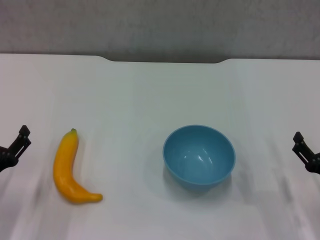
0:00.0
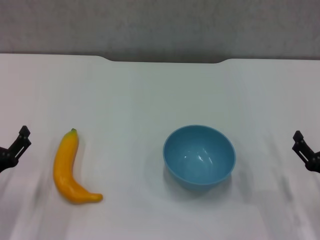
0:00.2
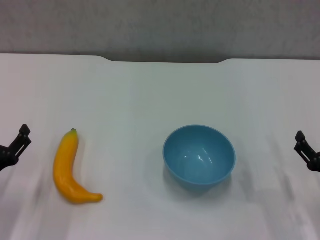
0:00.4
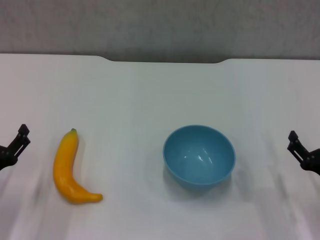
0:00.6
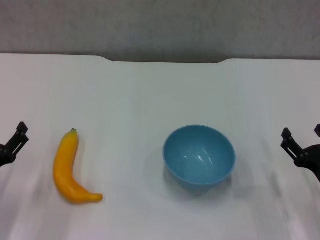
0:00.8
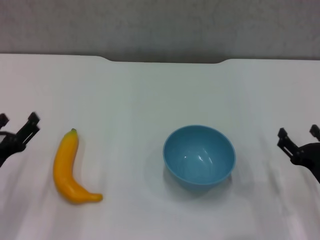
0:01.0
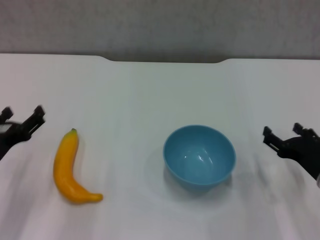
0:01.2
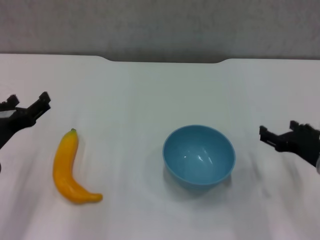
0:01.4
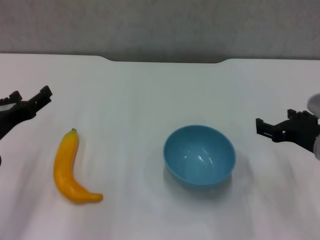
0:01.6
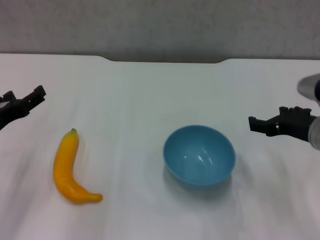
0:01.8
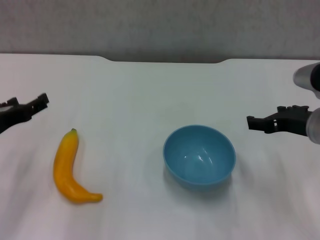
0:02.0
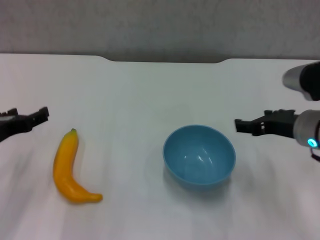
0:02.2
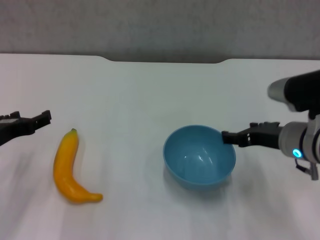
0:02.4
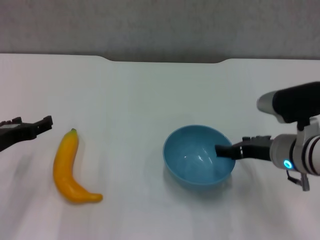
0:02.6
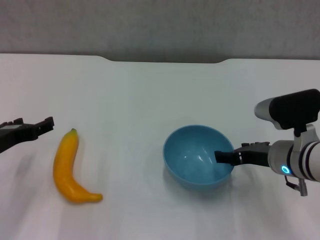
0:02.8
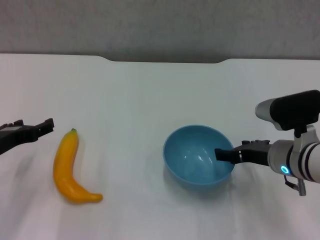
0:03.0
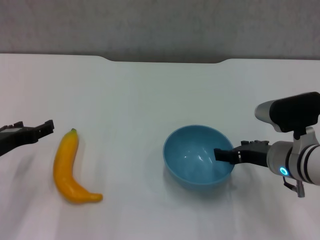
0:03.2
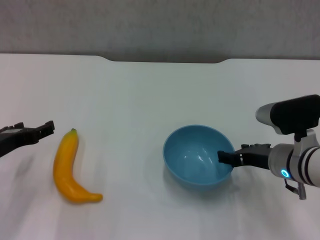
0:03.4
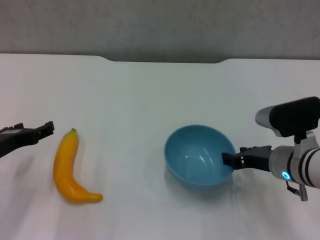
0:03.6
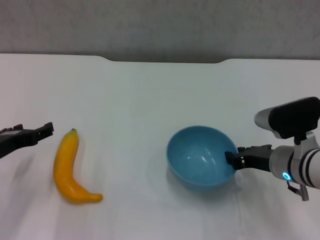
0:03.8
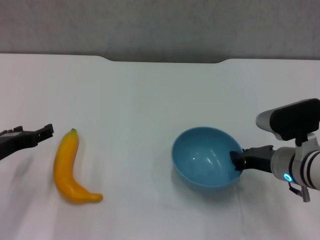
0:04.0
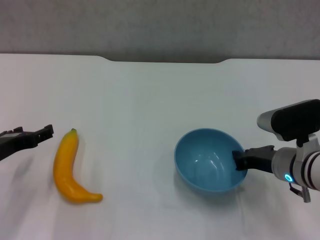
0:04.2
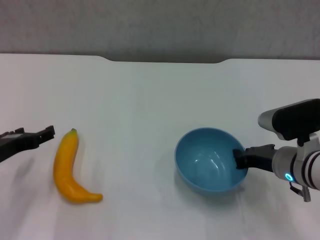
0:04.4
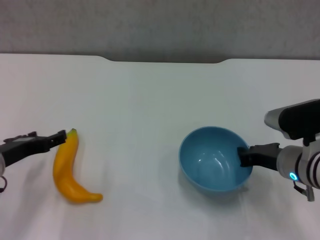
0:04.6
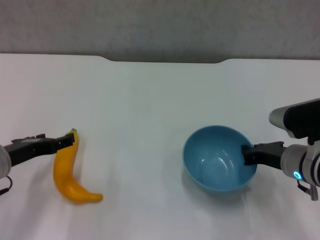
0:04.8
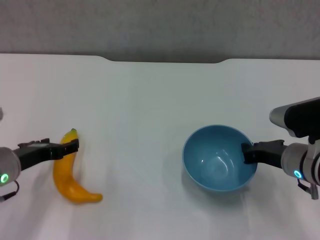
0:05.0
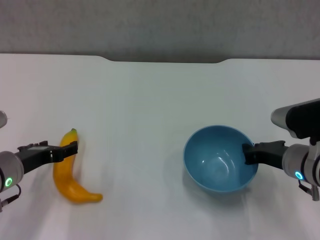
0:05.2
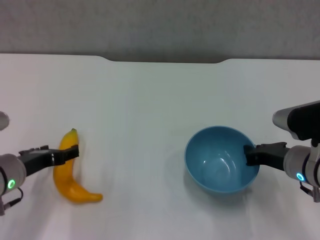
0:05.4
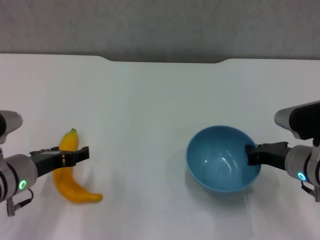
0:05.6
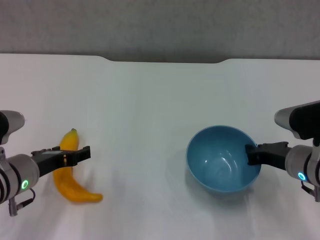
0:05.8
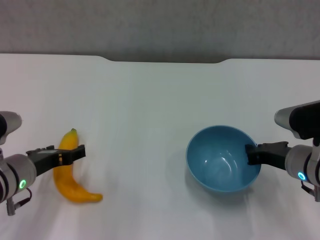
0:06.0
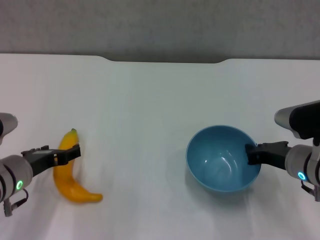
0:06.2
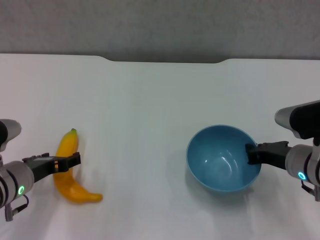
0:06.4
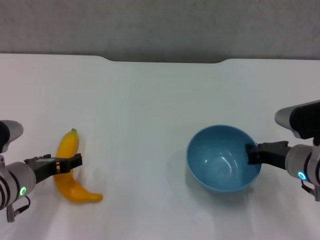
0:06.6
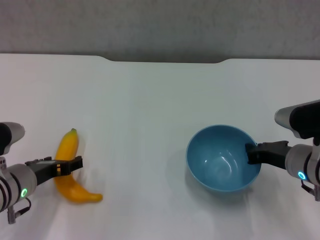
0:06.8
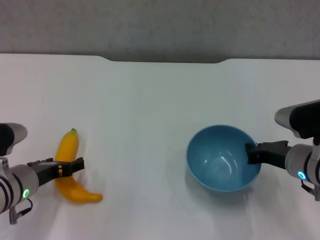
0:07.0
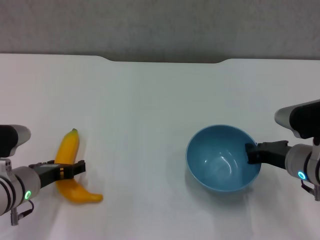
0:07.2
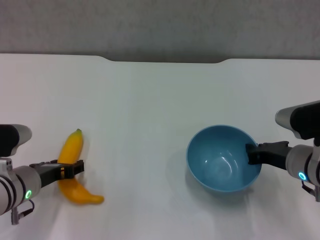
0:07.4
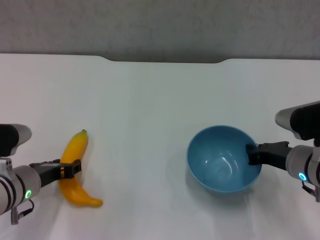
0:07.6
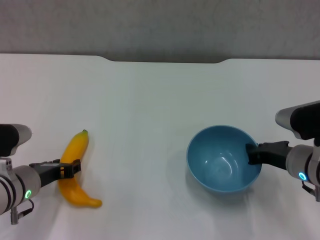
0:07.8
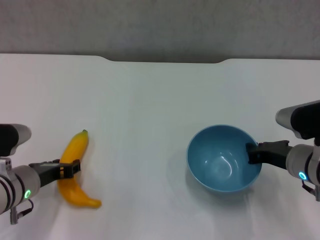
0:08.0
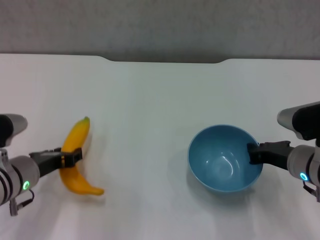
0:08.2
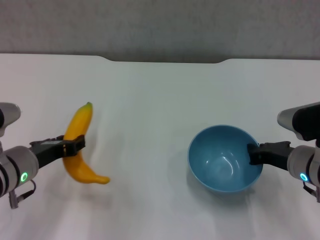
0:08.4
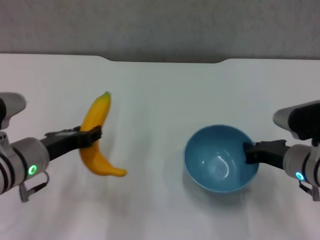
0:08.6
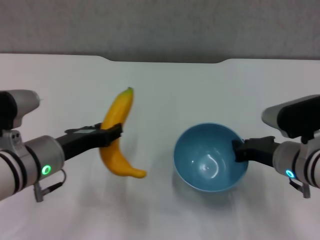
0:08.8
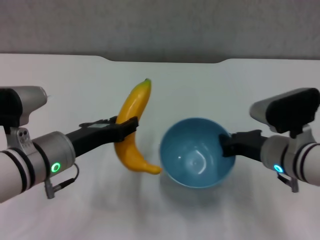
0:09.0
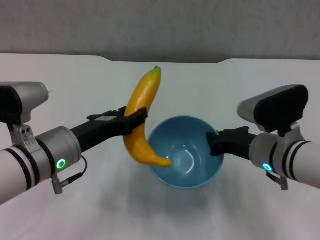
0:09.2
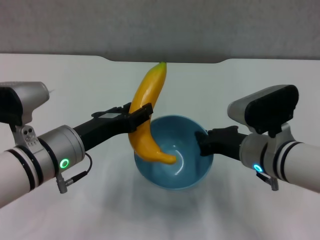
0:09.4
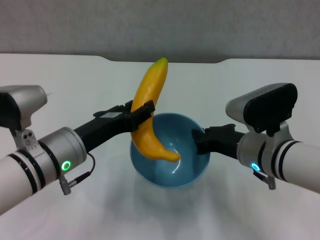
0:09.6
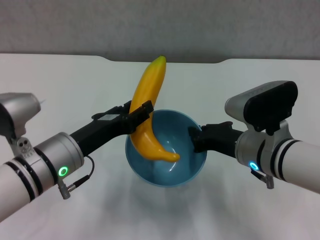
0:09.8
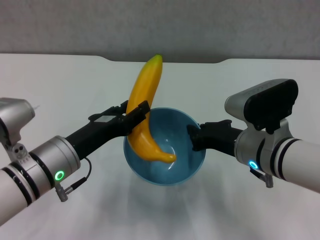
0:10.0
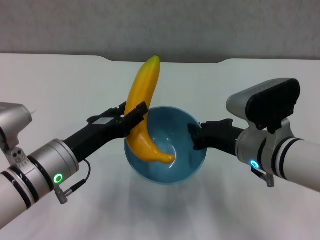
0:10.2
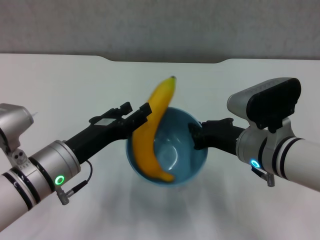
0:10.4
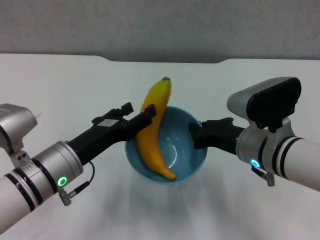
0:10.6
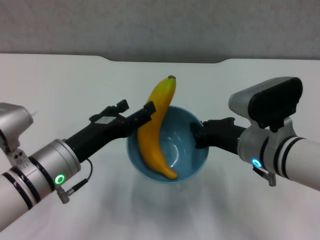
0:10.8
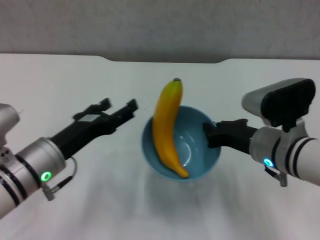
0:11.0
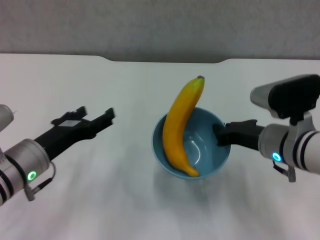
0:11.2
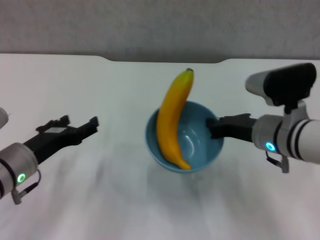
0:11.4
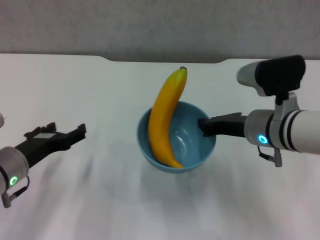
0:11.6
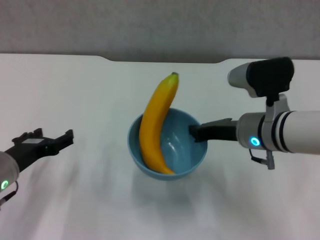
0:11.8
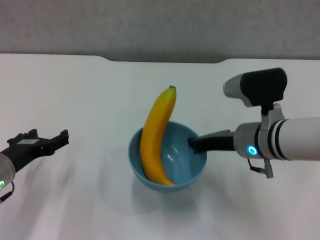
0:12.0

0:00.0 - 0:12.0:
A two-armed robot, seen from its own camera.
Step, 0:00.0 - 0:04.0: Grasp the blue bowl with right gripper.
Step, 0:04.2 - 0:05.2: Lift the blue bowl with right gripper.
Step, 0:05.6 - 0:07.6: Grasp the banana with left gripper.
Step, 0:07.8 - 0:10.6: Place the banana in the blue bowl with left gripper.
0:00.0 - 0:01.6: The right gripper moves upward and forward, roughly 15 cm. The left gripper moves upward, about 10 cm.
0:01.6 - 0:03.0: The right gripper ends up roughly 5 cm from where it was.
0:03.0 - 0:04.4: The right gripper closes up.
0:04.4 - 0:06.0: The left gripper heads to the right, covering some 5 cm.
0:06.0 - 0:07.6: The left gripper closes.
0:07.6 - 0:09.0: The left gripper travels upward and to the right by about 10 cm, and closes.
0:10.4 - 0:12.0: The left gripper is displaced to the left by about 10 cm, and opens.

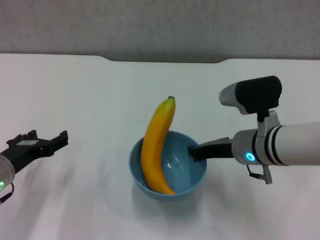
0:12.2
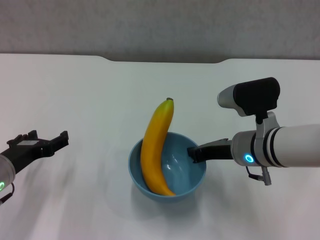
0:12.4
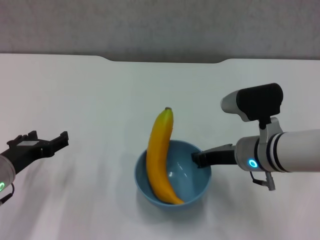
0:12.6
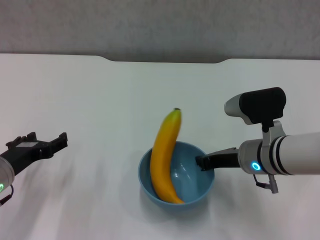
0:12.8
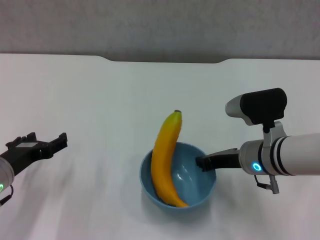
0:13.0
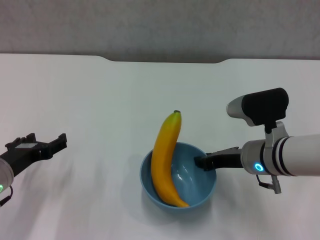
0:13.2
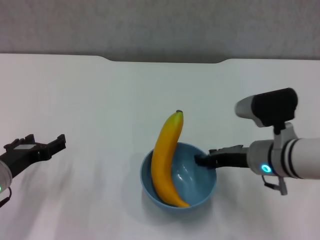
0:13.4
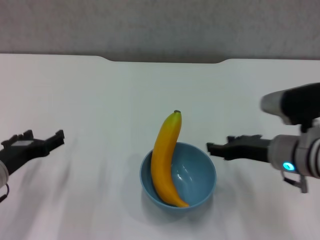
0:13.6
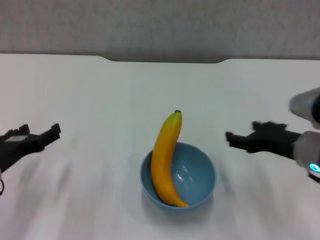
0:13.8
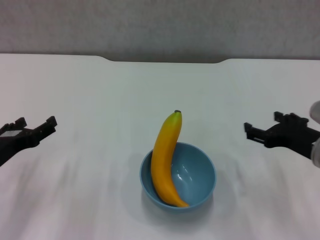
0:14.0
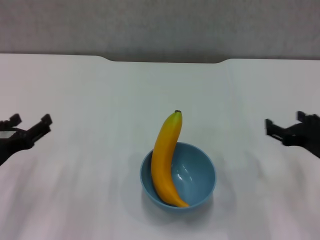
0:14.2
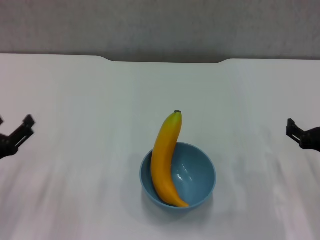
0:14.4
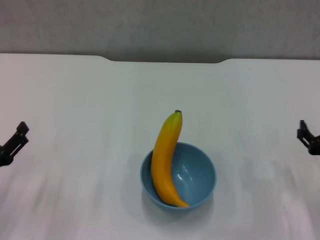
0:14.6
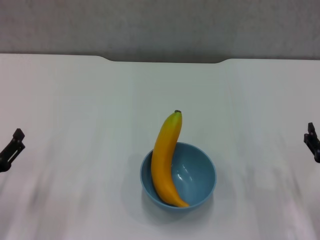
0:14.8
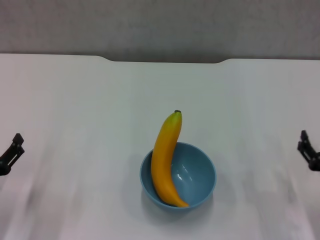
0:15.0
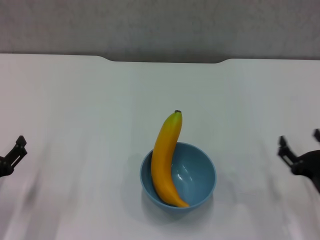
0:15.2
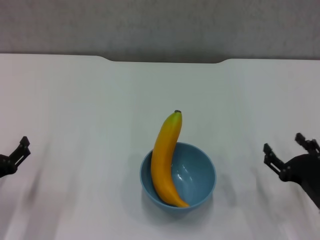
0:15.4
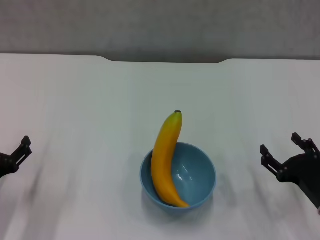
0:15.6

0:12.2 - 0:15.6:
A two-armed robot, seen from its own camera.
0:12.2 - 0:13.8: The right gripper goes some 10 cm to the right, and opens its fingers.
0:13.8 - 0:15.6: The left gripper goes some 5 cm downward; the right gripper is displaced downward and backward by approximately 15 cm.
